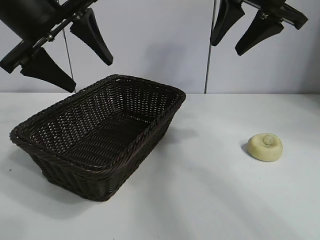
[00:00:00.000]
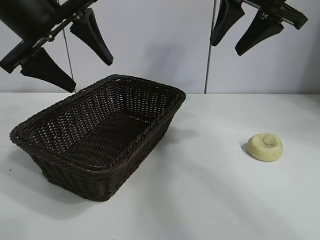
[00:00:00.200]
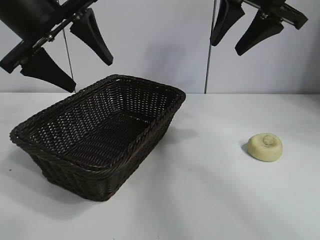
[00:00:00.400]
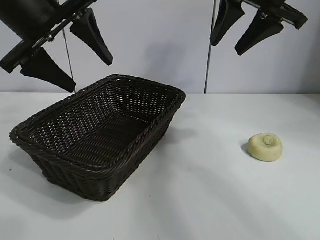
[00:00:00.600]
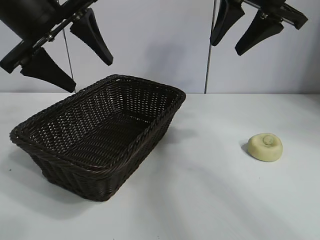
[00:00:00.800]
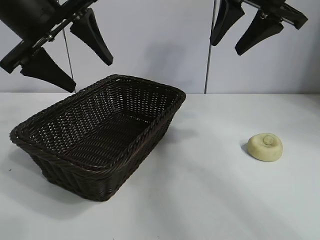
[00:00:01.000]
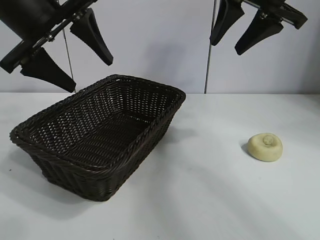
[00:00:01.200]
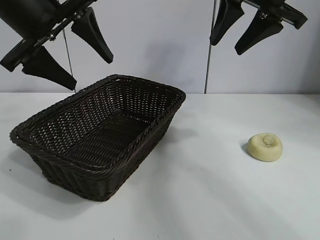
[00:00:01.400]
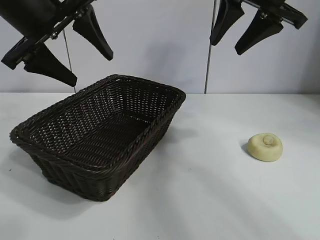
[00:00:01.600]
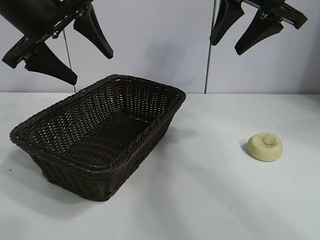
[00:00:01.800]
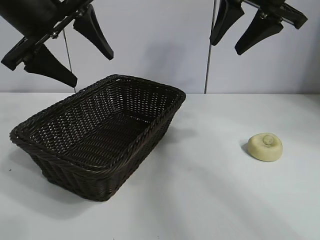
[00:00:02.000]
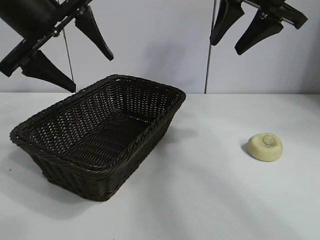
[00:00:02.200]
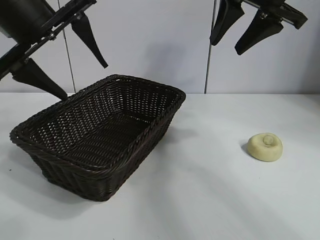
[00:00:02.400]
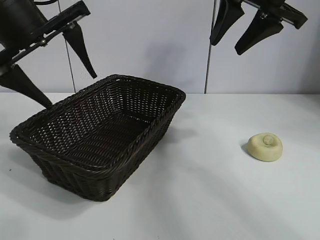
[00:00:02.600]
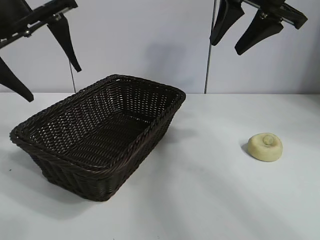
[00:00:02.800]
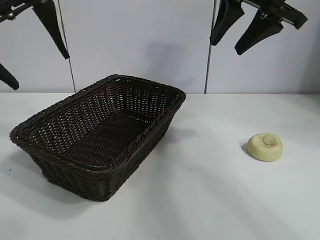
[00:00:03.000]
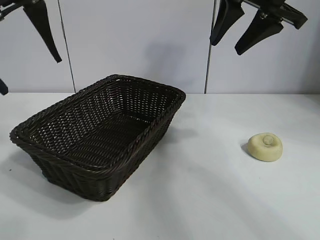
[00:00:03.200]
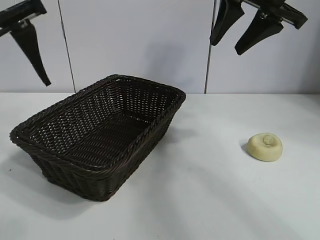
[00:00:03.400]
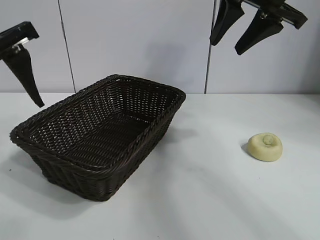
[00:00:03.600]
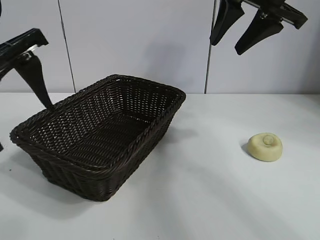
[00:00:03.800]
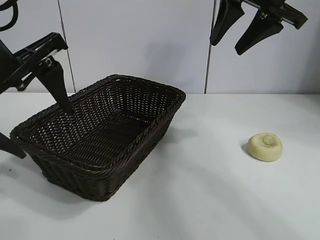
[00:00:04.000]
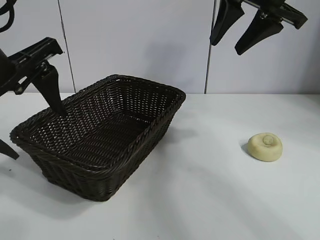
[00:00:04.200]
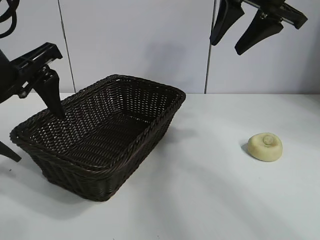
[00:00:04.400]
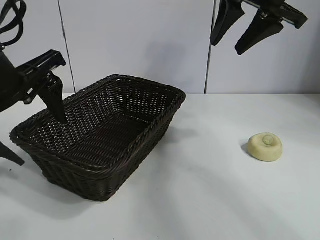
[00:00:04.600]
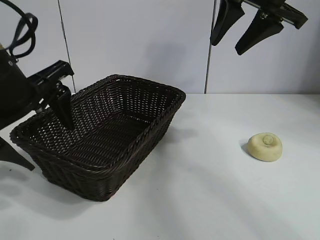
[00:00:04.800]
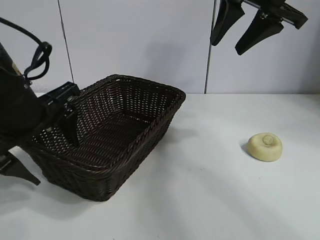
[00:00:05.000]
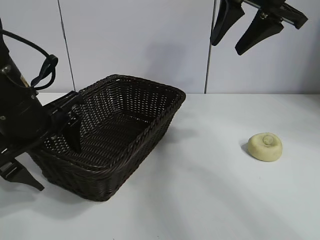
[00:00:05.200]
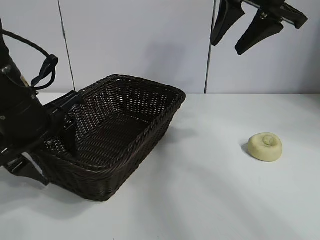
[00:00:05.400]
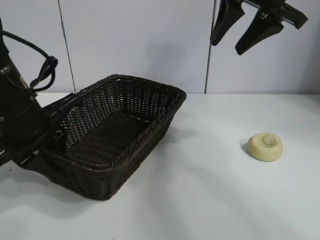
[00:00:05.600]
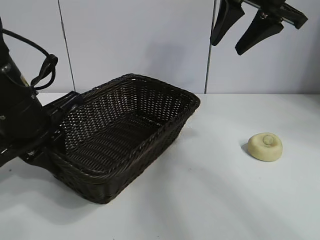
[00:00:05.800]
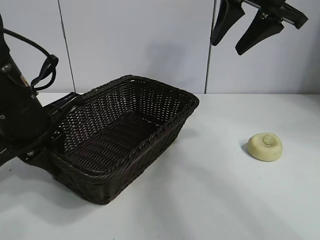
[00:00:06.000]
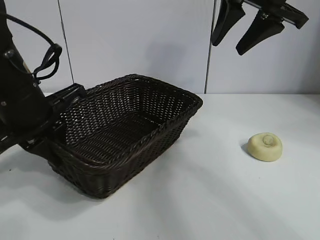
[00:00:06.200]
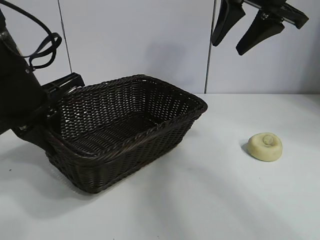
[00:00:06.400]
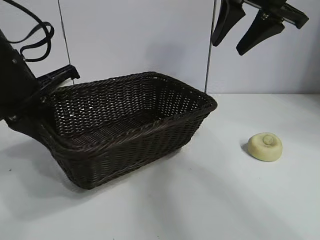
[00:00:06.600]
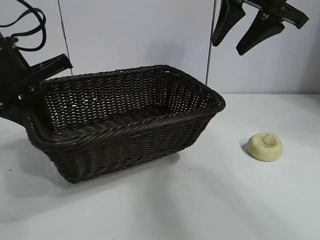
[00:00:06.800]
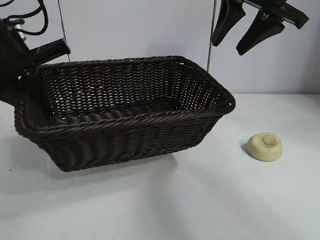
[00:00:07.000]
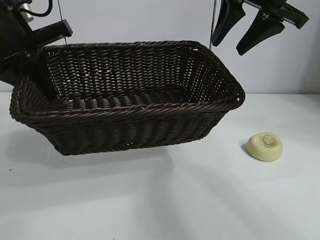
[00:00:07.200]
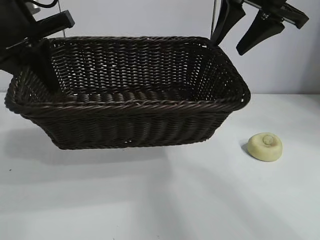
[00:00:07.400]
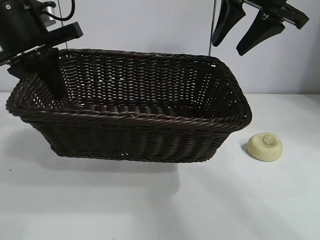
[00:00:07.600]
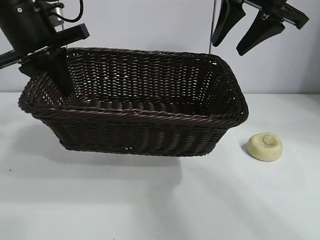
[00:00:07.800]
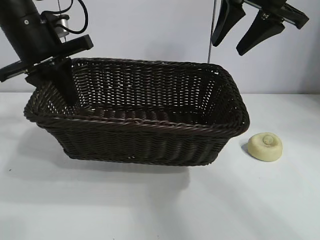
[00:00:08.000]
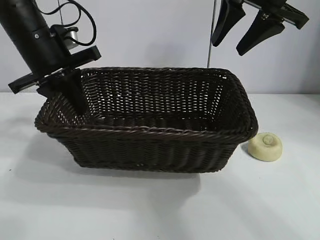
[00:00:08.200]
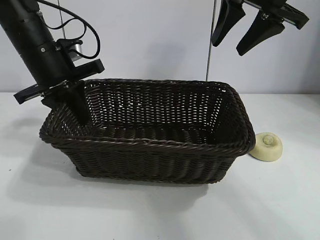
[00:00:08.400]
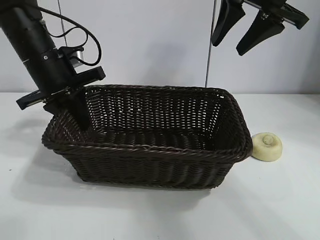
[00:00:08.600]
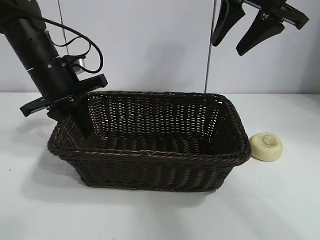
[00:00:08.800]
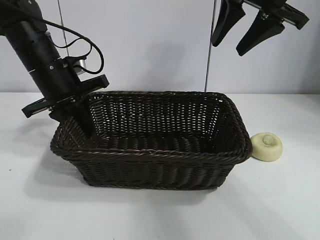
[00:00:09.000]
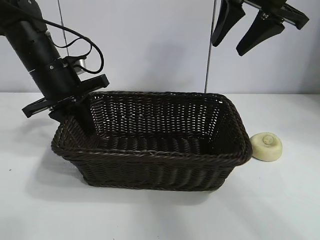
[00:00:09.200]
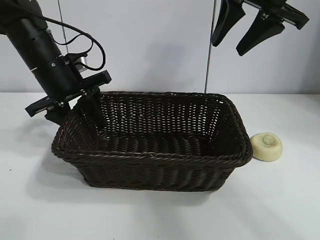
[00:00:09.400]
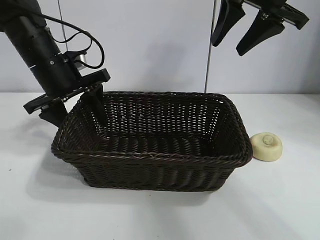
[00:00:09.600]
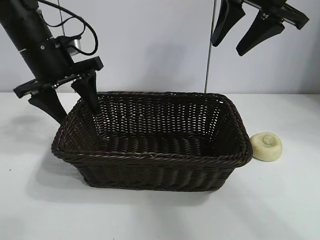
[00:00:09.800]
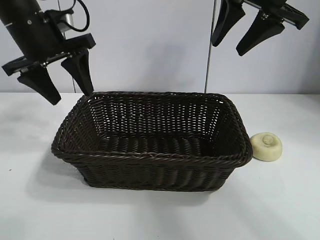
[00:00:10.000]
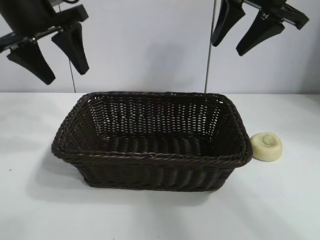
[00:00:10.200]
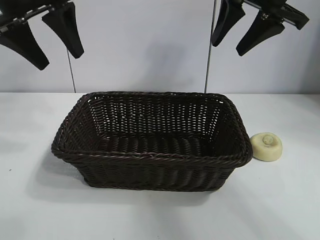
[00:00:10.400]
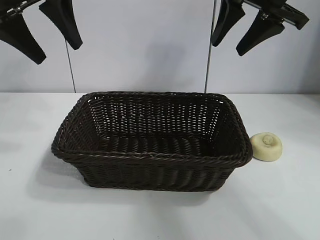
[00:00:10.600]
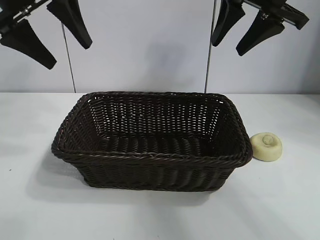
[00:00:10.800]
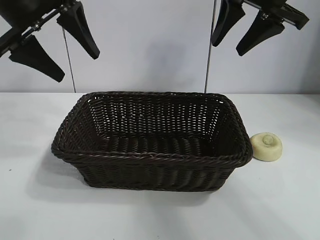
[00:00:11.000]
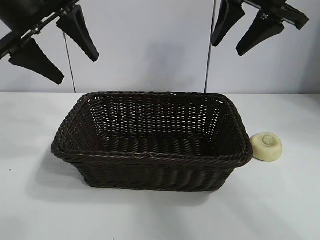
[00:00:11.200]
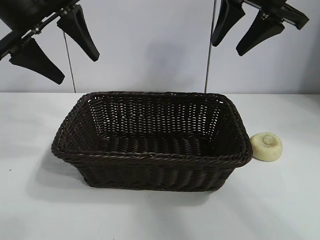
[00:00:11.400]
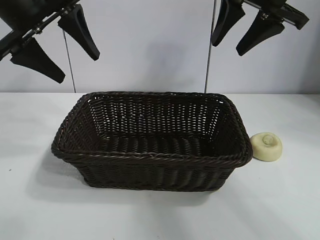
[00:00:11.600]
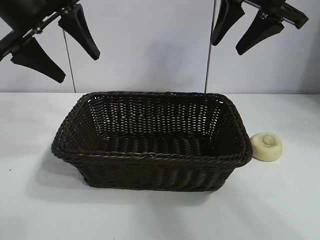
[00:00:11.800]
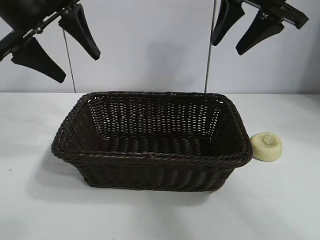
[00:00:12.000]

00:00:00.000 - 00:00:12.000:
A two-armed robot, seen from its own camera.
Task of the whole recording: pick up the egg yolk pastry and put it into the basket.
Step, 00:00:01.400 - 00:00:05.800: Grasp the basket with left gripper.
Step, 00:00:06.000 - 00:00:09.400: Place the basket in the center of view with left gripper.

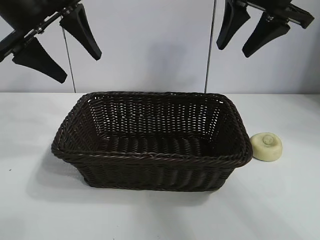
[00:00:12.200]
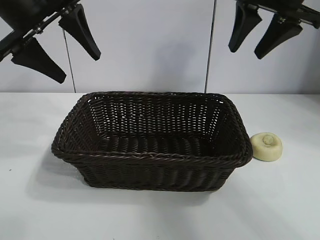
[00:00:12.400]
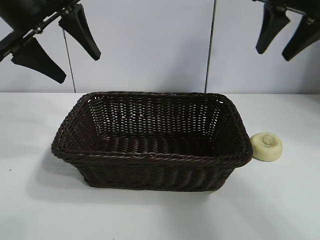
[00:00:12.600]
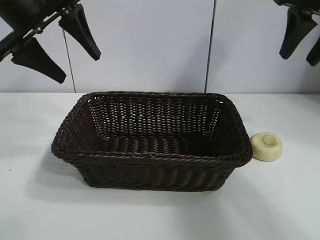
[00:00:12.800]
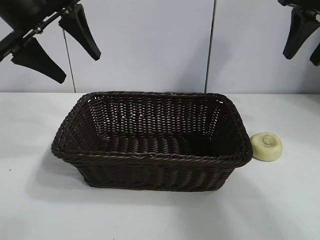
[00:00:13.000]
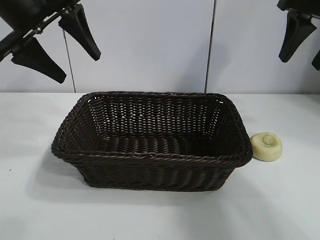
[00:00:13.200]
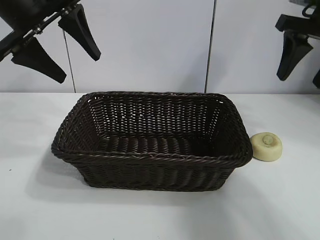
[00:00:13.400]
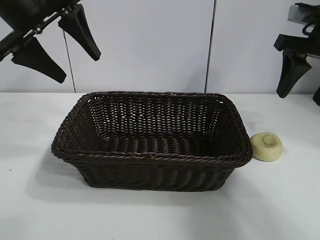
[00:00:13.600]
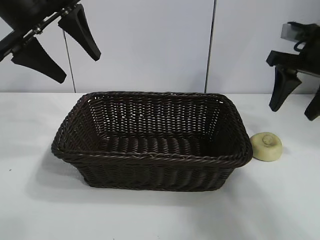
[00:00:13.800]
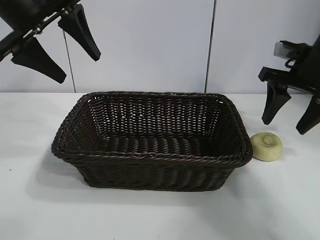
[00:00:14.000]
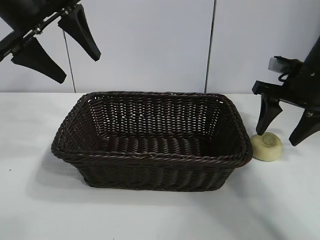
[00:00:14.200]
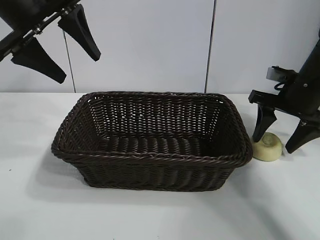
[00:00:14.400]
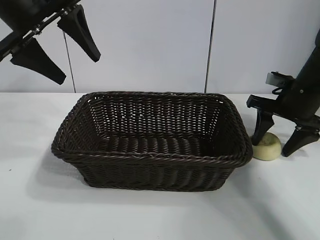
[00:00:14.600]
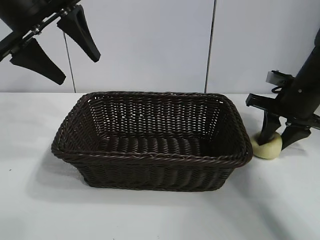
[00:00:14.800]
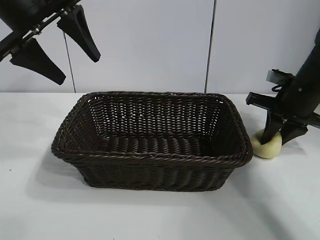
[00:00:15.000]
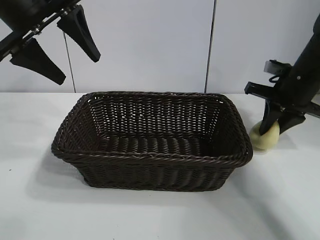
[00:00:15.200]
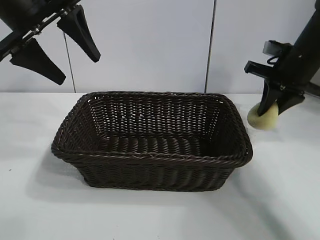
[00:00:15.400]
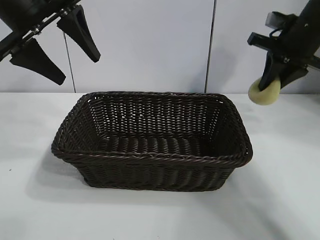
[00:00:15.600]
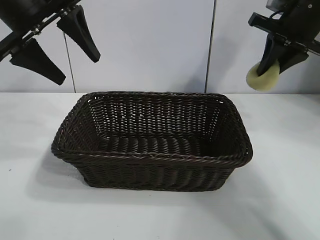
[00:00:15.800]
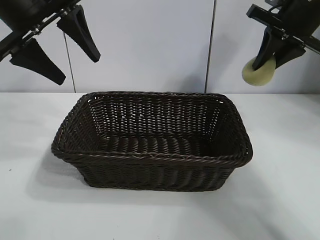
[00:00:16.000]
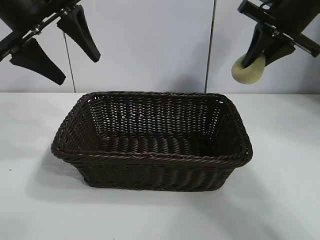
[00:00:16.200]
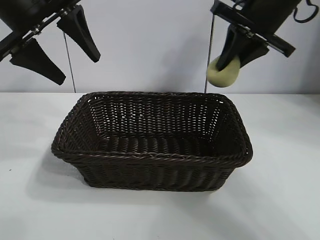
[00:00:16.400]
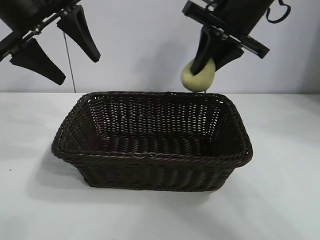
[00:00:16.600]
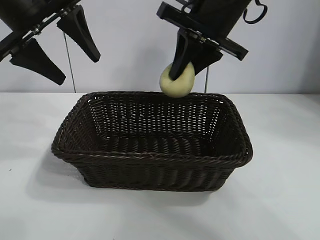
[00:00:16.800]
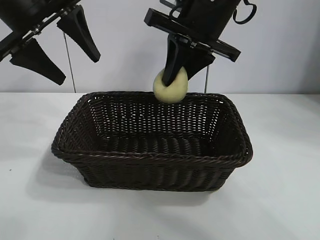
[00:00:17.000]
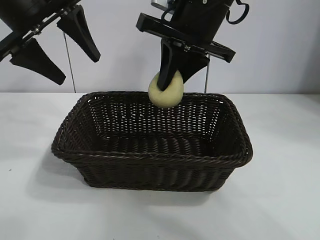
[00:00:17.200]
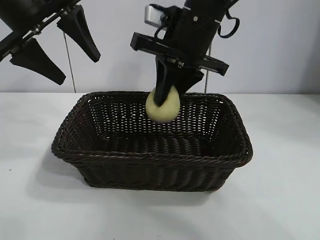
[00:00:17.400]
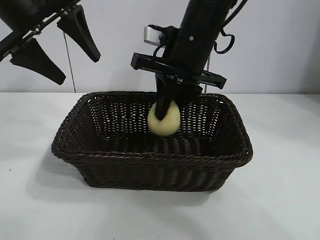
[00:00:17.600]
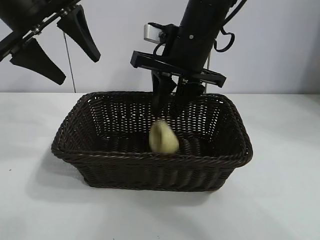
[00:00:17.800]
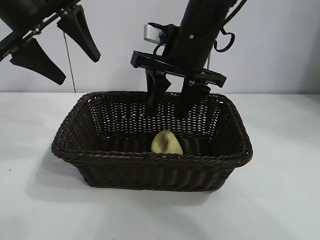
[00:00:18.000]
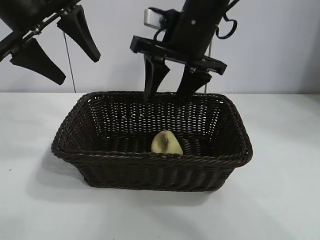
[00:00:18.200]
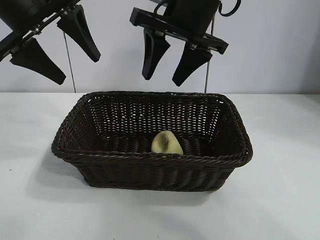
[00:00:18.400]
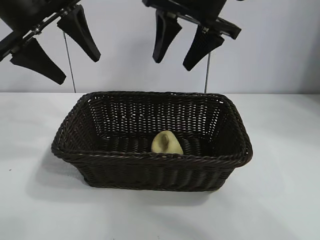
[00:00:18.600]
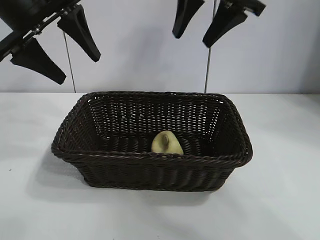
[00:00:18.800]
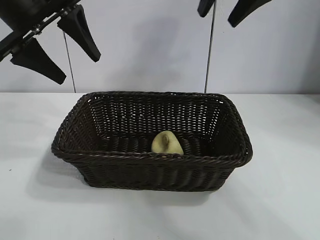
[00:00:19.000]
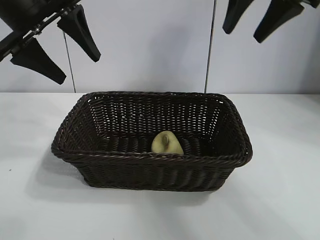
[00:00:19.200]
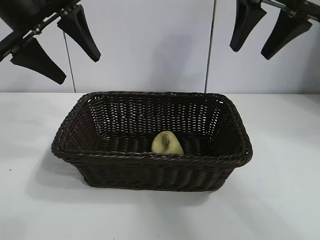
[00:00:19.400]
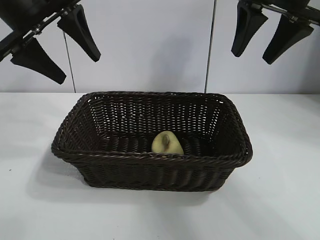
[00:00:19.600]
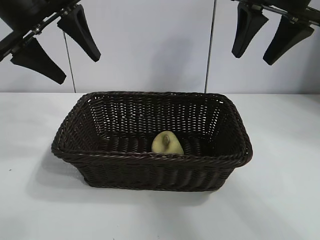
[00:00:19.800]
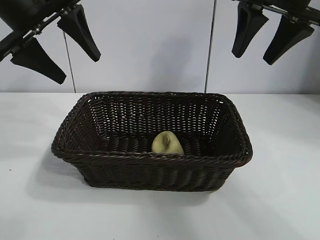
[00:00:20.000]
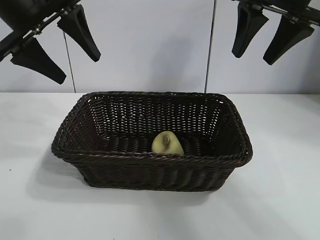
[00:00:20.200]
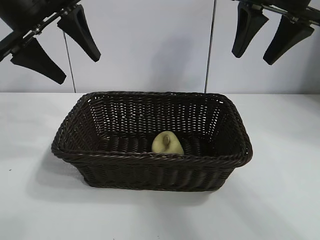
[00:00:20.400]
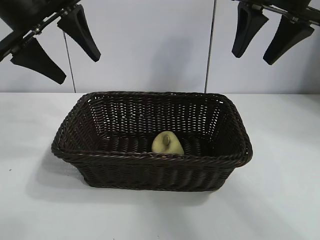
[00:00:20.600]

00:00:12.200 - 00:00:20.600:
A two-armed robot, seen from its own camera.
Task of the whole recording: pick up the egg yolk pastry and put it into the basket.
Step, 00:00:12.200 - 00:00:14.800: Grasp egg yolk pastry with right gripper.
Step, 00:00:15.000 - 00:00:17.800: Place the egg yolk pastry in the basket with right gripper.

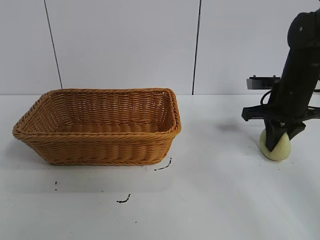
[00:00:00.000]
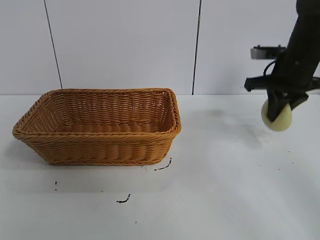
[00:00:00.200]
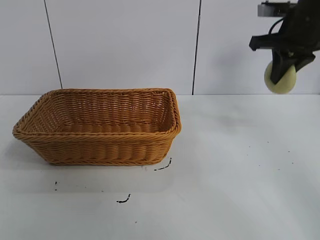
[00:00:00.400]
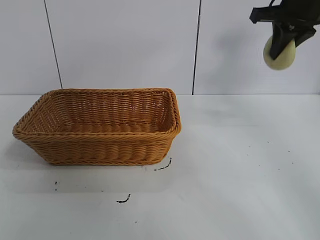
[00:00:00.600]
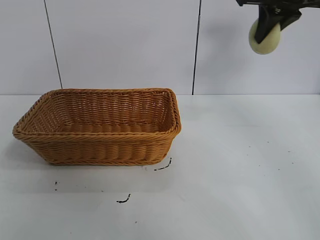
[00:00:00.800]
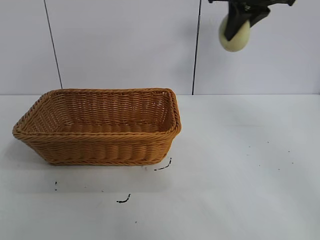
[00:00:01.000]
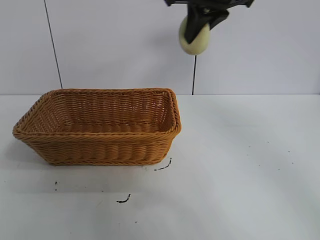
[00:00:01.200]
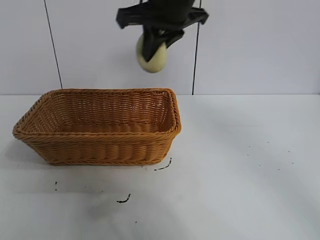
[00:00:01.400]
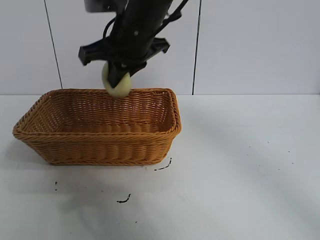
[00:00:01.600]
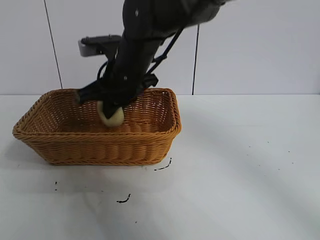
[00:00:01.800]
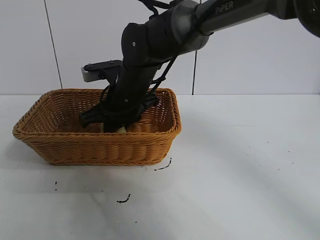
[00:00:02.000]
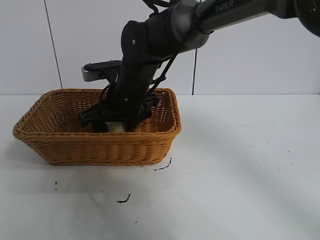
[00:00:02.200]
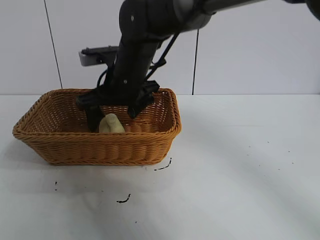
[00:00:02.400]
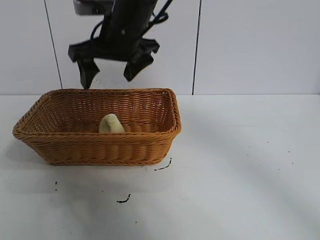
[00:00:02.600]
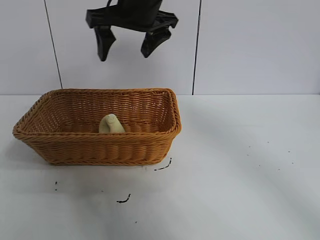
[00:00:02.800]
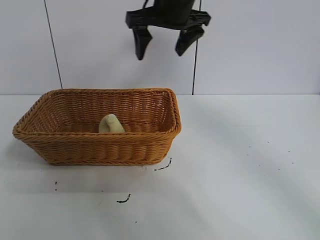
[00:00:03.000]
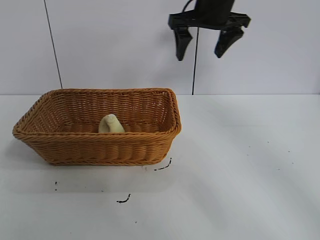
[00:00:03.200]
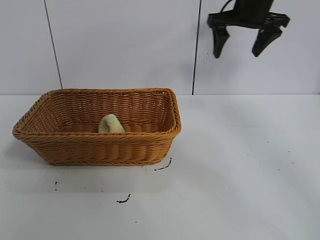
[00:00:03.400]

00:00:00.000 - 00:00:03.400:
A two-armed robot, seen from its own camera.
Task of the whole recording: pick up the egg yolk pastry and put it into the basket.
Step, 00:00:00.000 - 00:00:02.000: Place the egg yolk pastry in the basket with right gripper.
